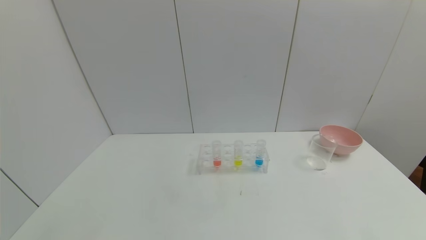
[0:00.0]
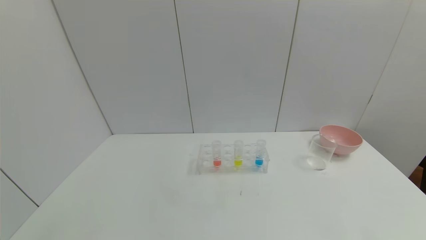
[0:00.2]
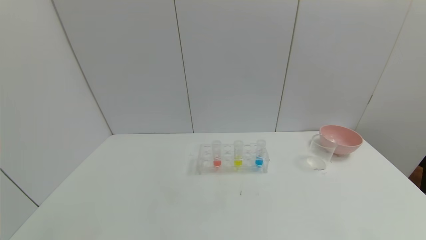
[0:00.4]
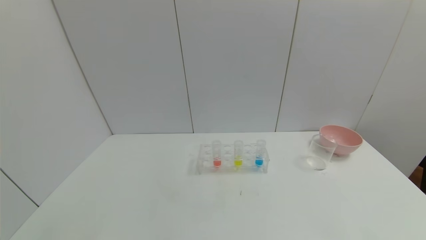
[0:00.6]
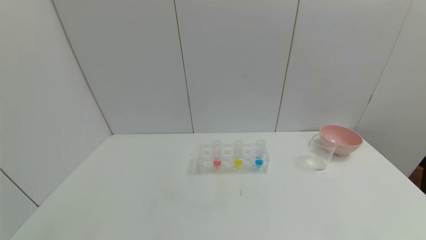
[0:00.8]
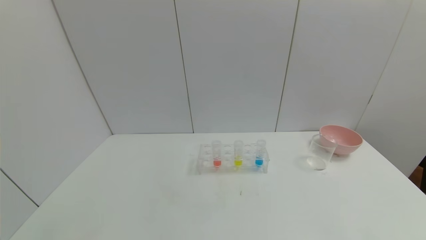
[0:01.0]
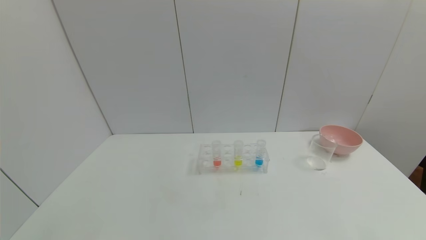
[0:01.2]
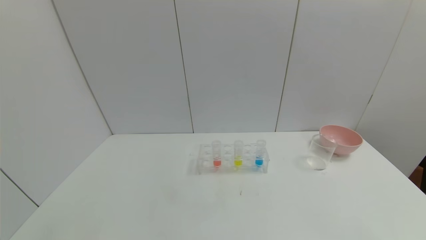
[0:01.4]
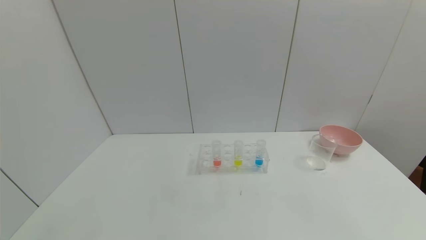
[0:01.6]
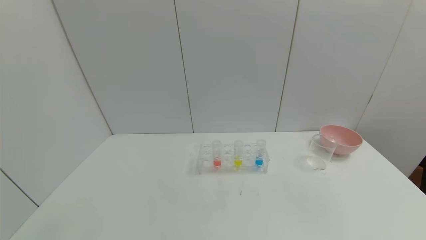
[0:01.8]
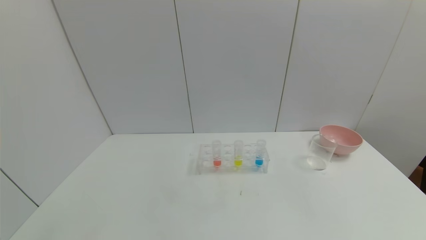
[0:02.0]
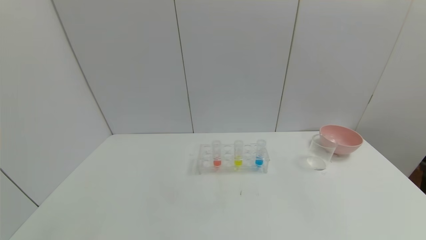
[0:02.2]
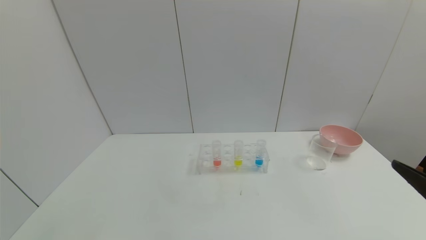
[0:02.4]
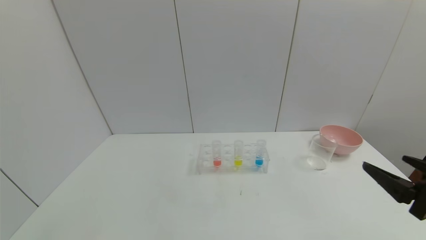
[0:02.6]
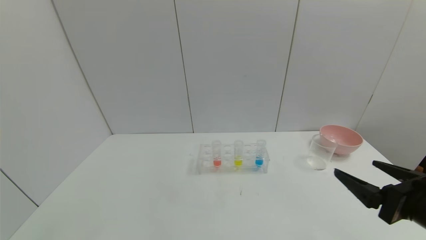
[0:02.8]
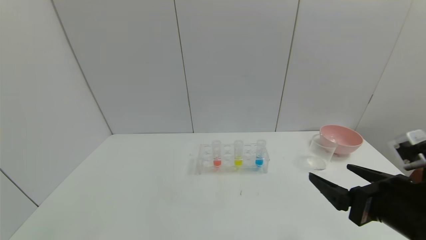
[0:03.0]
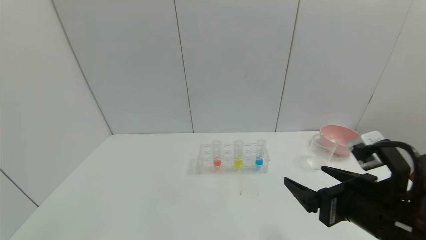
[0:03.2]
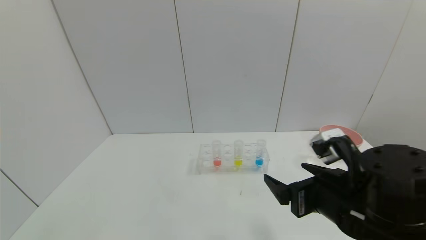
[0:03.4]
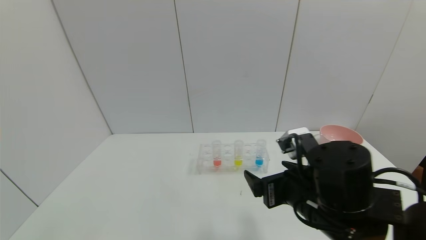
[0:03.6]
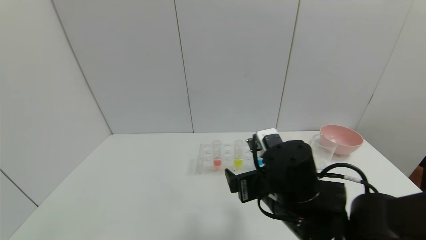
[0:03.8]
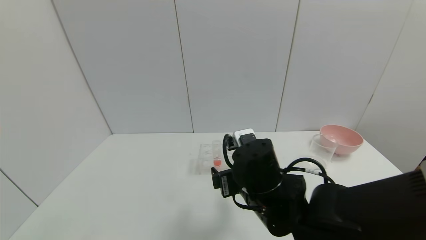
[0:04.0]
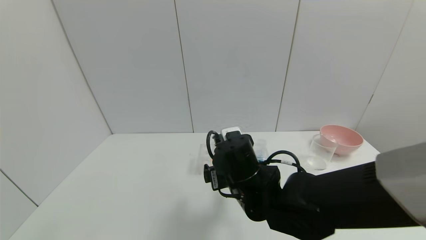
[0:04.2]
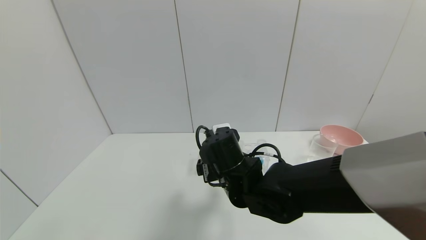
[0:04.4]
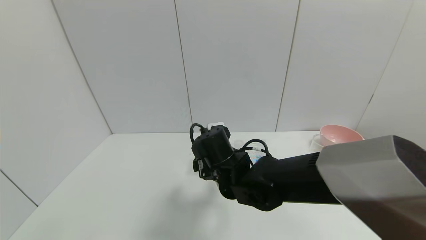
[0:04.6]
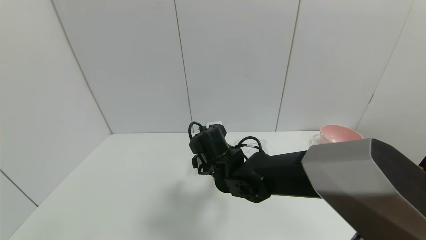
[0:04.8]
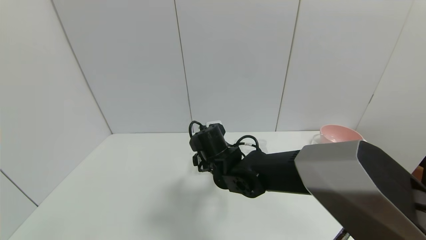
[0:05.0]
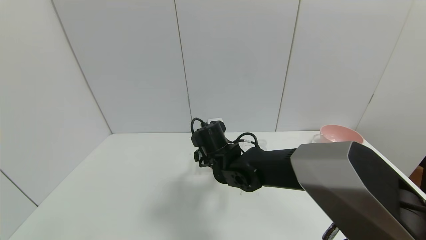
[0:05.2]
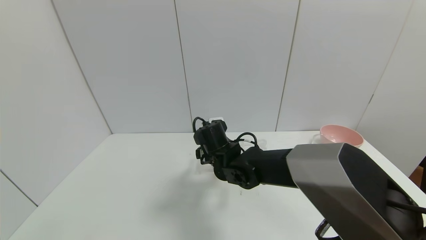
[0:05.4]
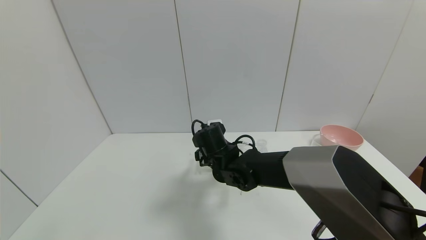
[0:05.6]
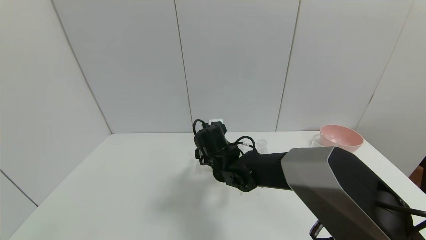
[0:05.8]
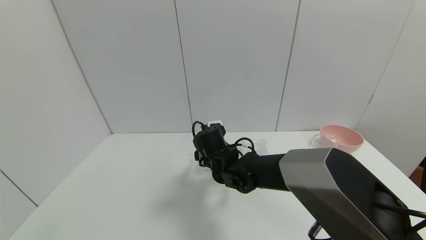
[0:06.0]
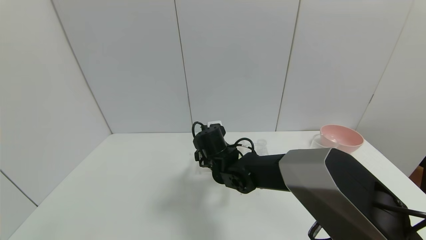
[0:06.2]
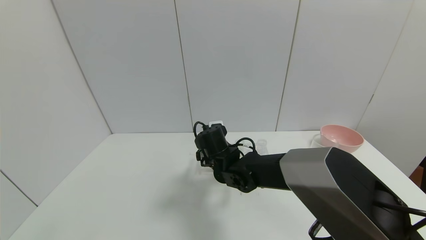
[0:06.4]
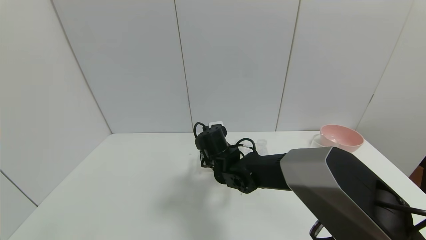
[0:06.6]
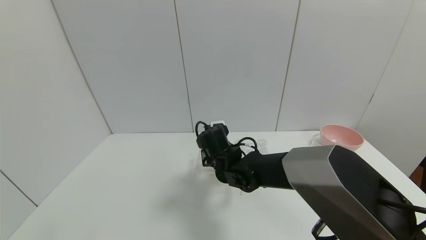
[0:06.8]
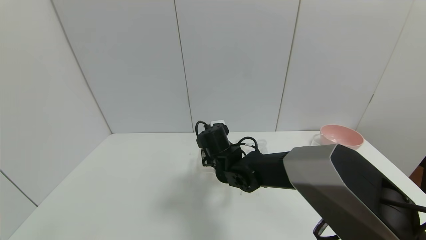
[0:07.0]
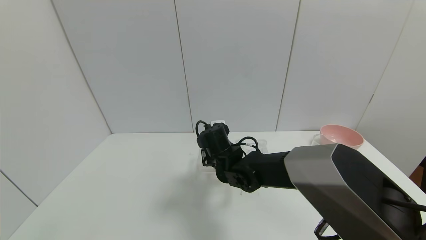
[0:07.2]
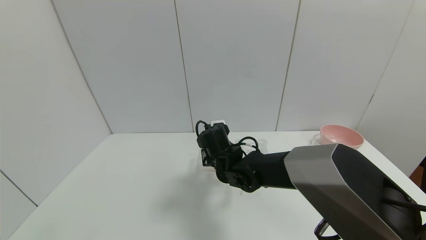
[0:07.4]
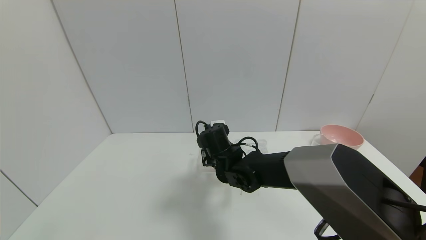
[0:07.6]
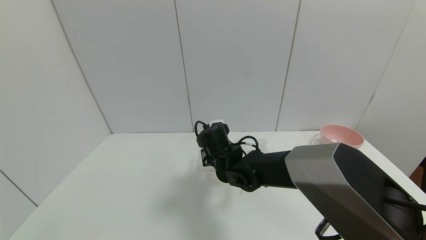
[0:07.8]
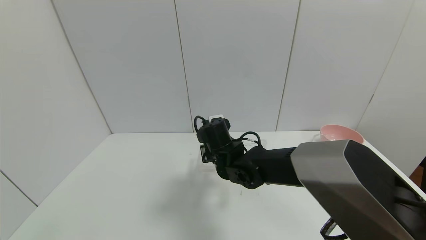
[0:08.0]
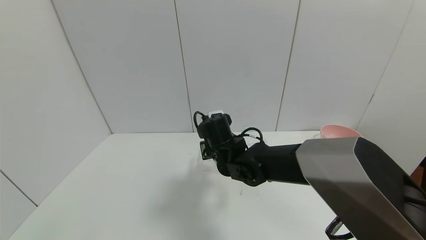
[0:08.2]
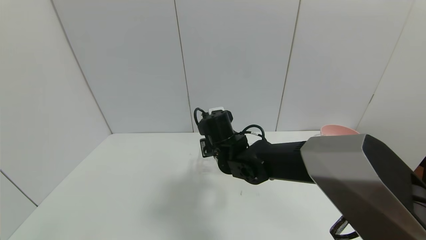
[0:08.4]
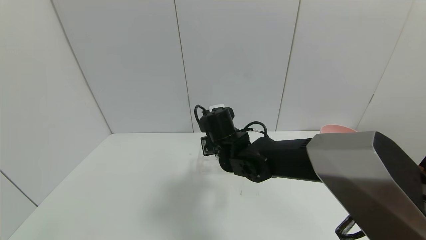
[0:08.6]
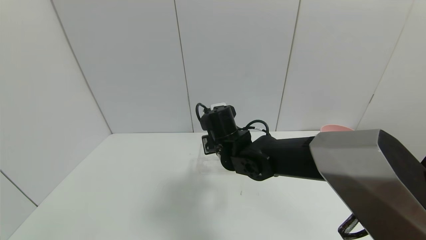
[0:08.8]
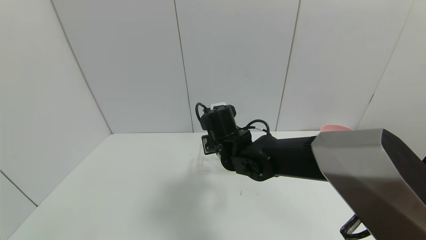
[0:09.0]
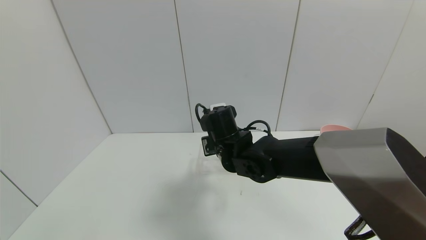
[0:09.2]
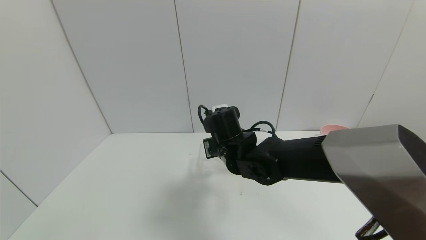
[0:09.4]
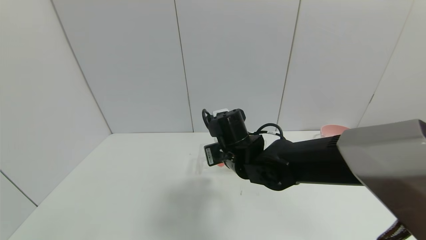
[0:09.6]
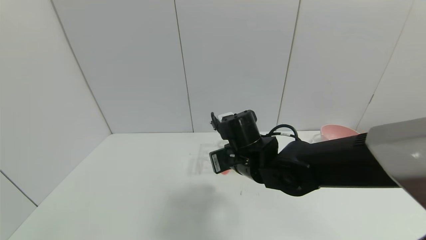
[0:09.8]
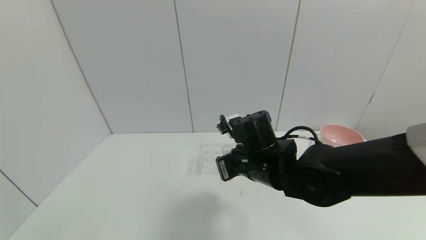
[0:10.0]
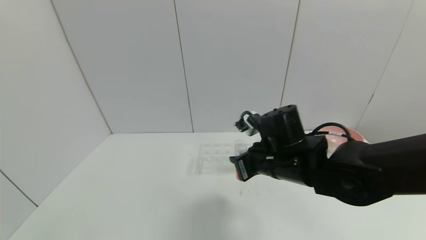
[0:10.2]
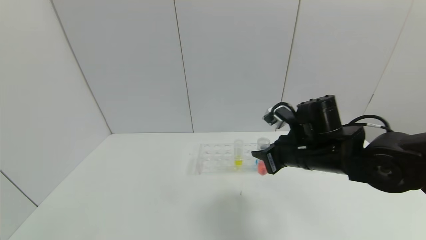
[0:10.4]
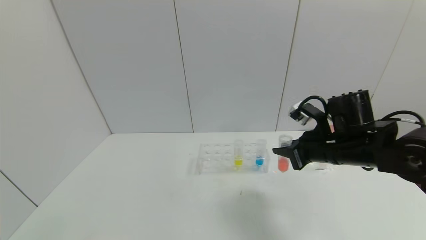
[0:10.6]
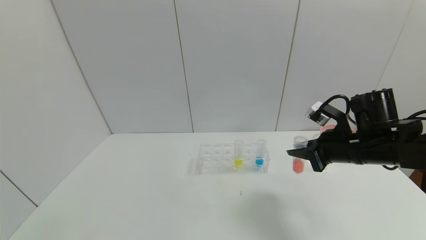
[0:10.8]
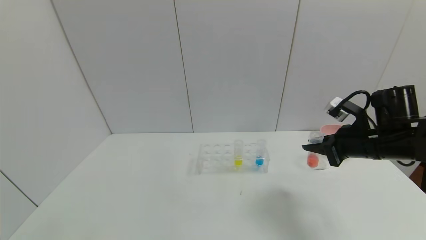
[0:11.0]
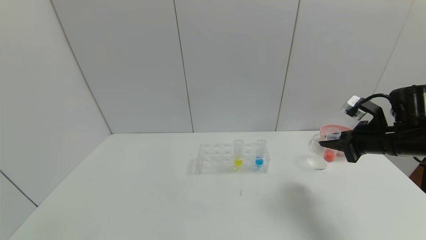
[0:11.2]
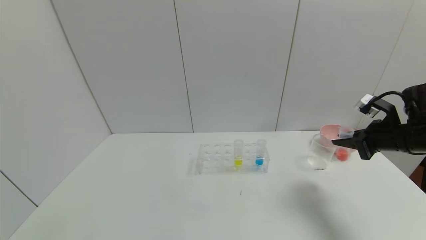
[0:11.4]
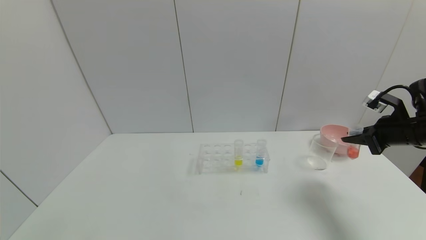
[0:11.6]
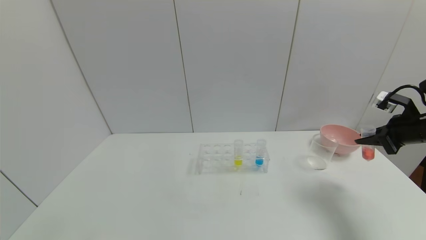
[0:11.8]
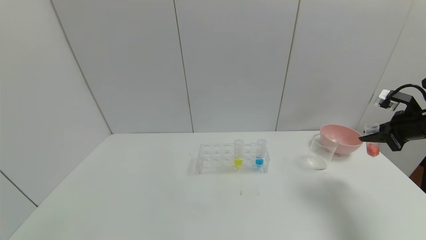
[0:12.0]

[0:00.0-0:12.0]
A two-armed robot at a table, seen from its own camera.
Task of the whole recording: pick up the test tube with yellow pigment and the test tube with red pigment by grippers and pour them into the beaker.
Step, 0:00.0 to 0:07.0: Grasp the red reagent with the right gripper.
0:01.6 to 0:03.0: The right gripper is displaced forward and to the left by approximately 20 cm.
0:03.0 to 0:04.4: The right gripper goes about 25 cm to the left and forward.
0:04.4 to 0:06.0: The right gripper moves forward, roughly 10 cm.
0:06.0 to 0:07.6: The right gripper closes its fingers.
0:07.6 to 0:09.0: The right gripper heads upward, covering roughly 5 cm.
0:09.0 to 0:10.4: The right gripper goes about 15 cm to the right.
0:10.4 to 0:12.0: The right gripper is displaced to the right by approximately 30 cm.

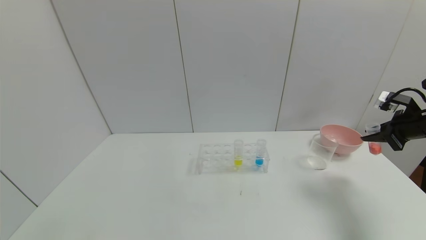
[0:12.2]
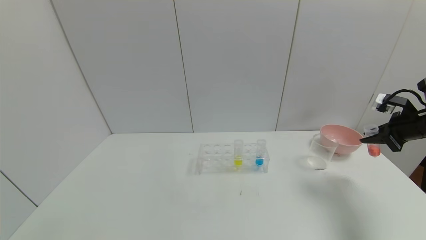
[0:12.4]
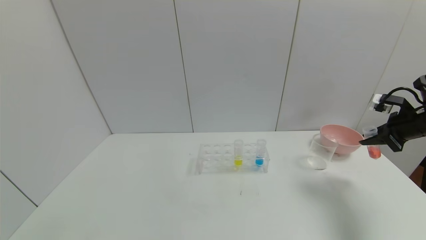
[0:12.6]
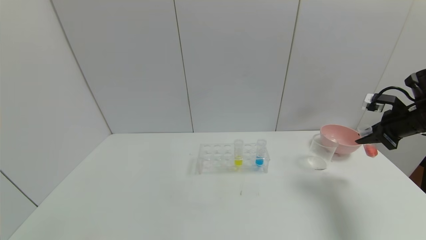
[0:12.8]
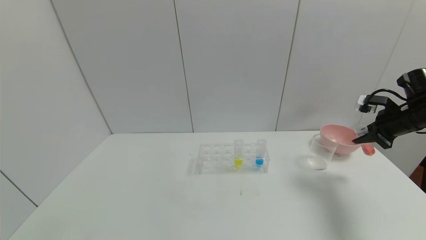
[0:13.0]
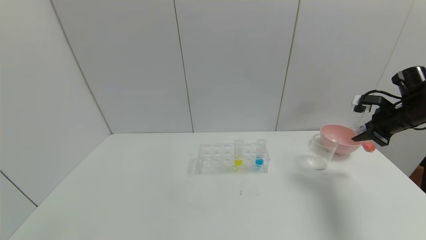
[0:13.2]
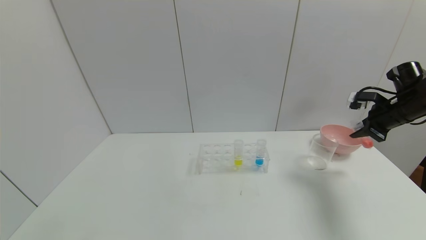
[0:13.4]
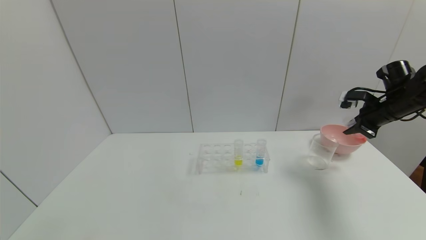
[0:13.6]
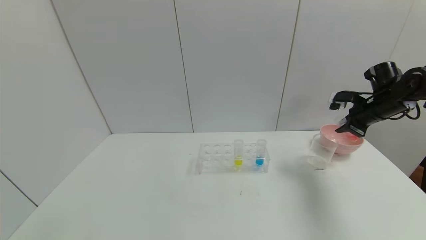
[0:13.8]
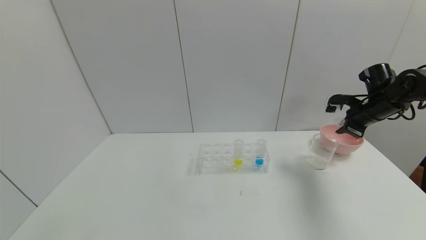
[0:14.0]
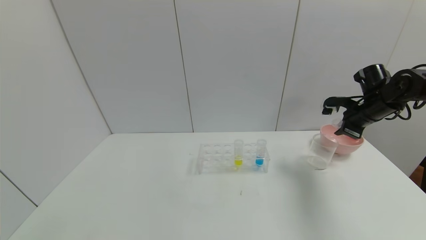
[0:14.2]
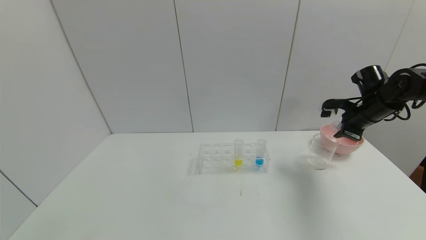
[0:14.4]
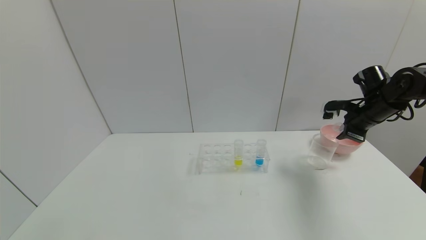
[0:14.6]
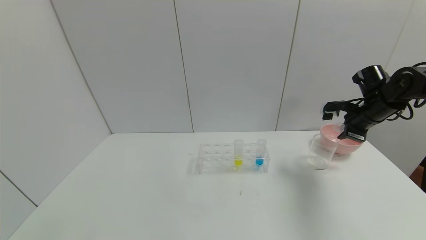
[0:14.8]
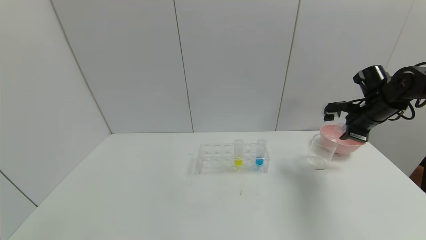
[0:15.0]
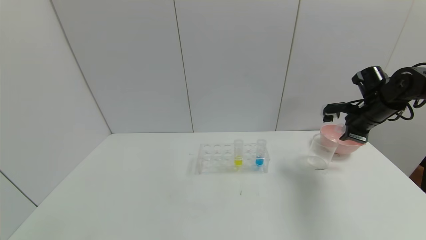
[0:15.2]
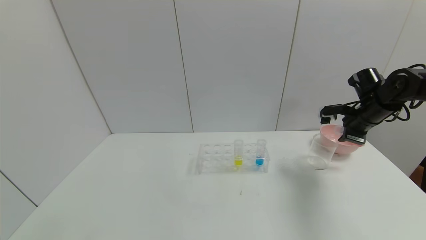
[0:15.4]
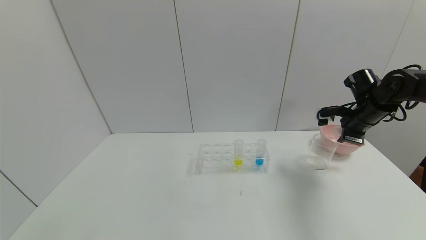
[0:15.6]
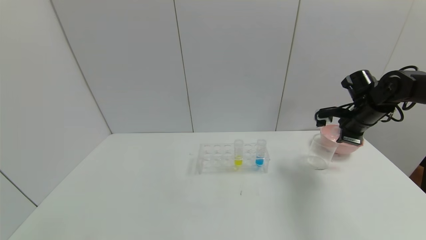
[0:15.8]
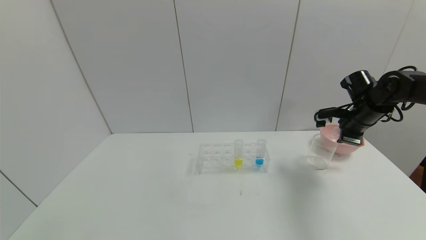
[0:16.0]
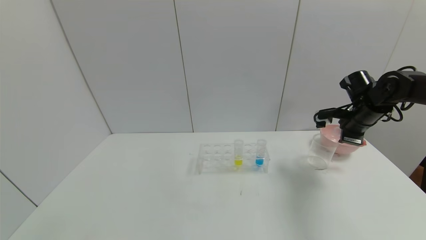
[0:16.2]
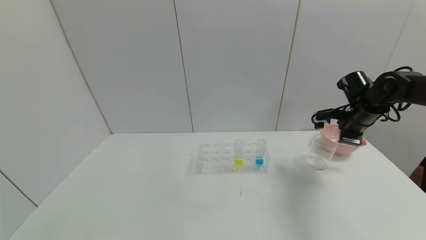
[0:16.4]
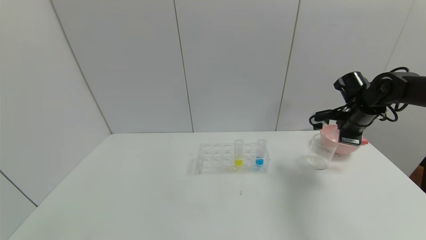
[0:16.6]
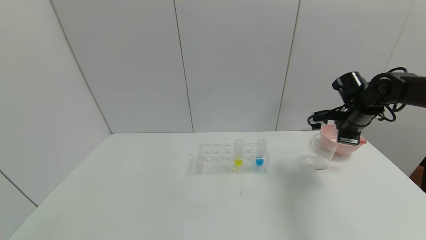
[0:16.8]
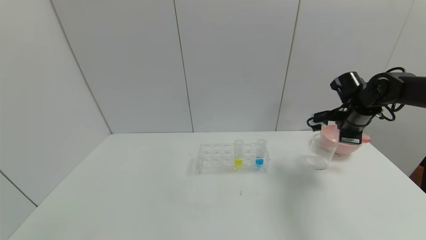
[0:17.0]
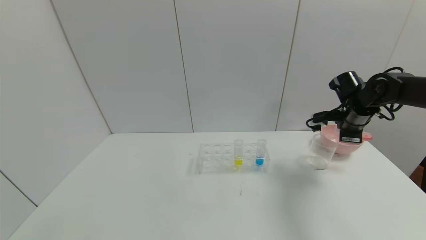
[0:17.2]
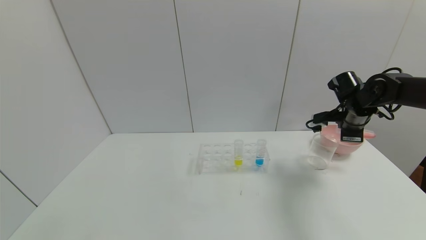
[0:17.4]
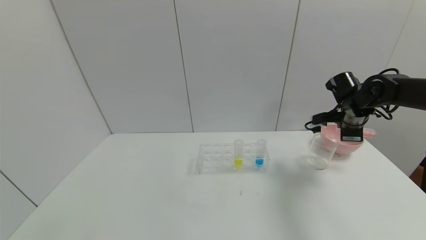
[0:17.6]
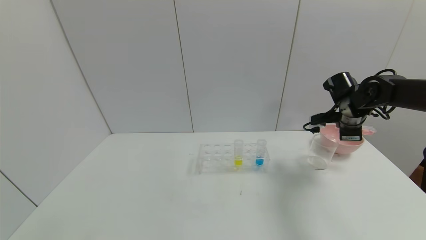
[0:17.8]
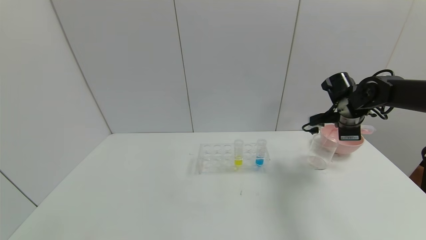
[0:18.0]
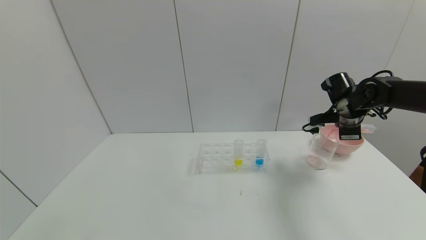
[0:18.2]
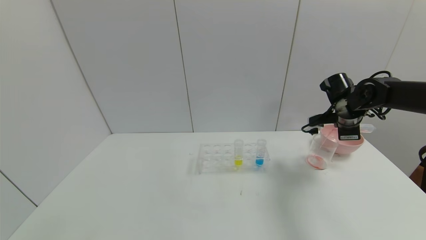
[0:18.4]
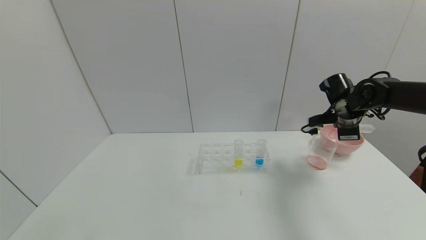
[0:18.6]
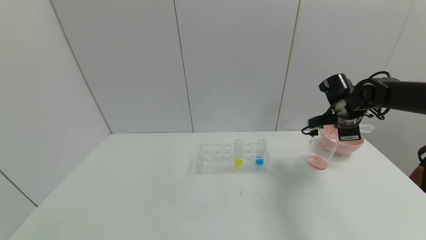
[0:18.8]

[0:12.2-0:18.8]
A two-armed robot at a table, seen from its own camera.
Task of the whole recording: pick up the test tube with yellow pigment and the test tube with red pigment by grippers and pour them into the beaker.
0:12.2 to 0:13.8: The right gripper travels forward and to the left by roughly 10 cm.
0:13.8 to 0:15.4: There are only small adjustments of the grippers.
0:15.4 to 0:17.2: There are only small adjustments of the grippers.
0:17.2 to 0:18.8: The grippers stay close to where they were, moving slightly.
